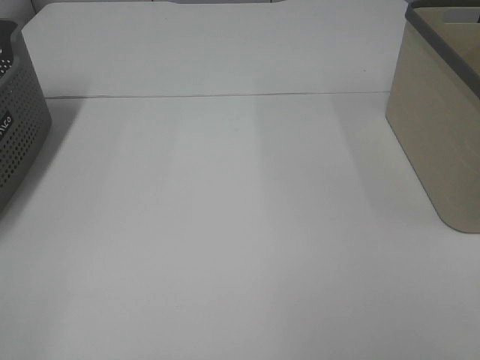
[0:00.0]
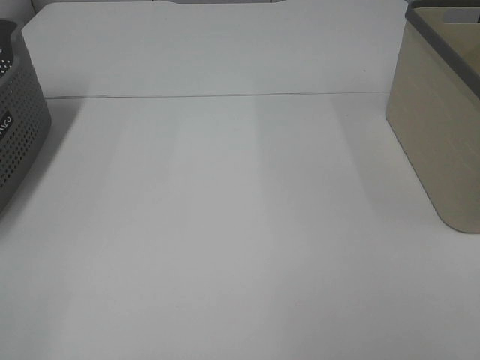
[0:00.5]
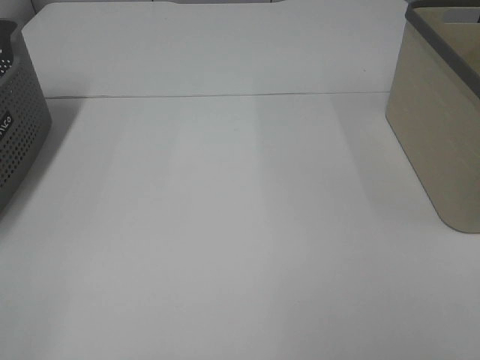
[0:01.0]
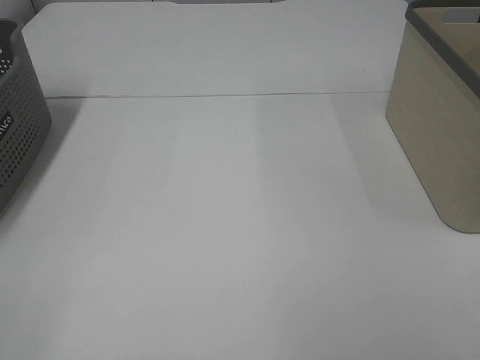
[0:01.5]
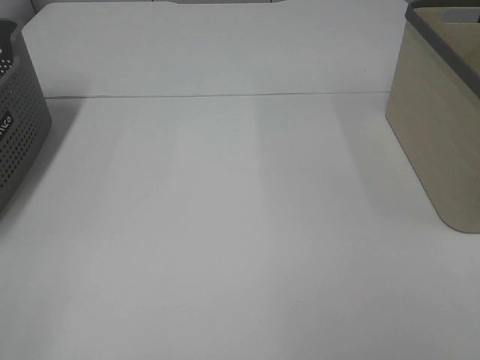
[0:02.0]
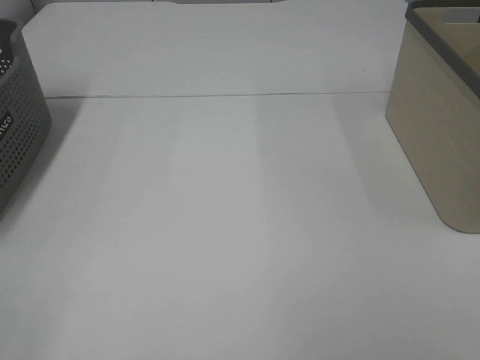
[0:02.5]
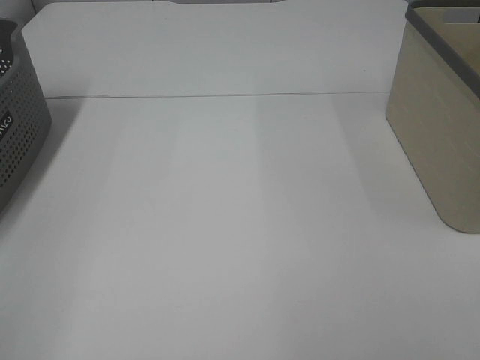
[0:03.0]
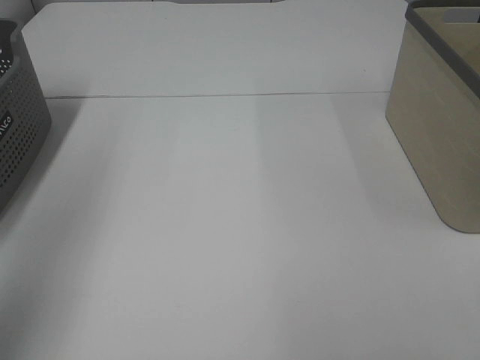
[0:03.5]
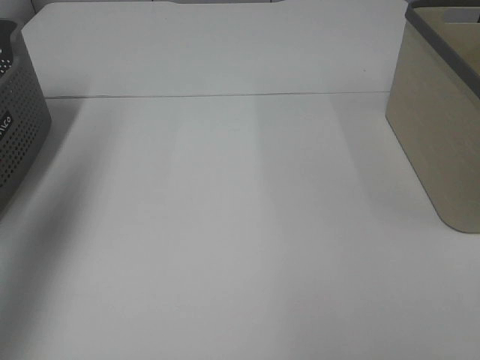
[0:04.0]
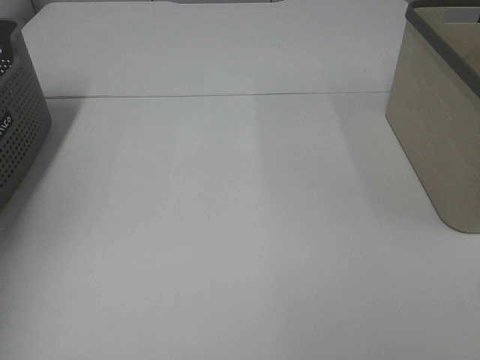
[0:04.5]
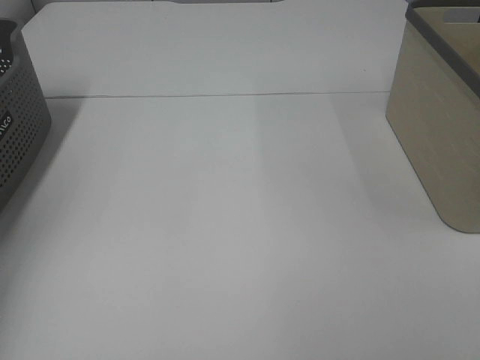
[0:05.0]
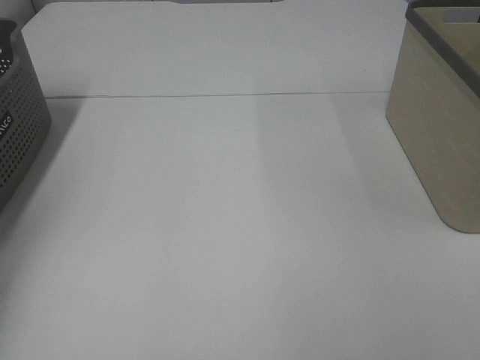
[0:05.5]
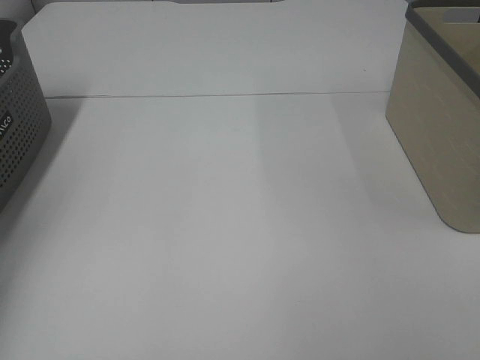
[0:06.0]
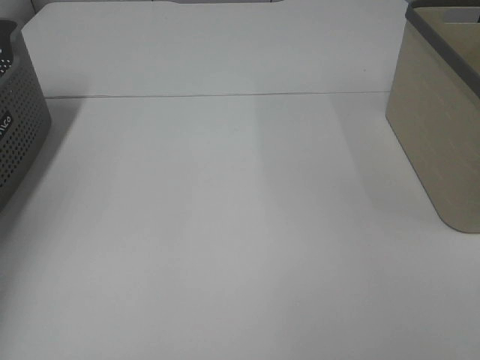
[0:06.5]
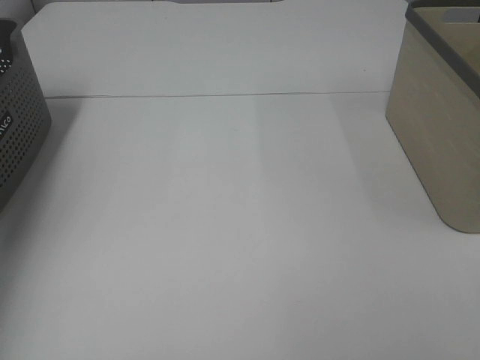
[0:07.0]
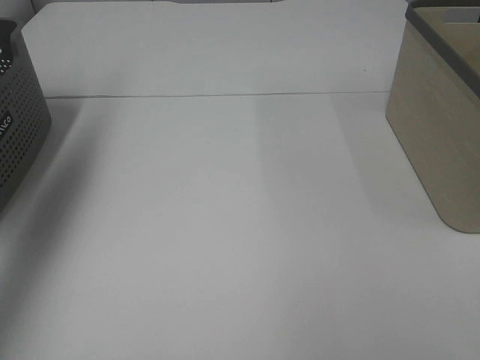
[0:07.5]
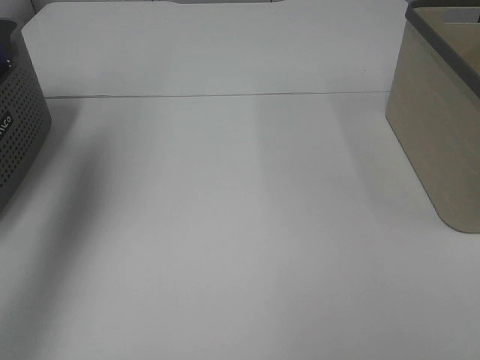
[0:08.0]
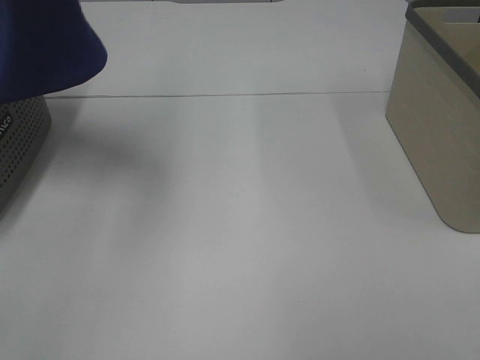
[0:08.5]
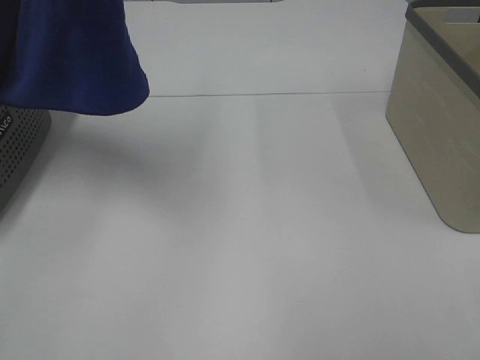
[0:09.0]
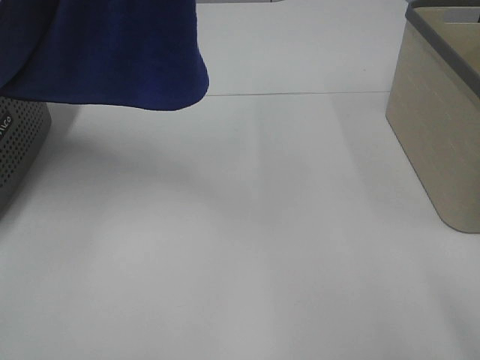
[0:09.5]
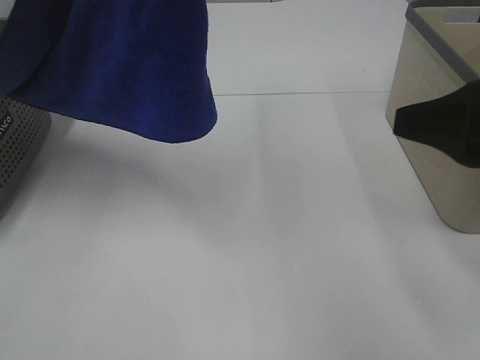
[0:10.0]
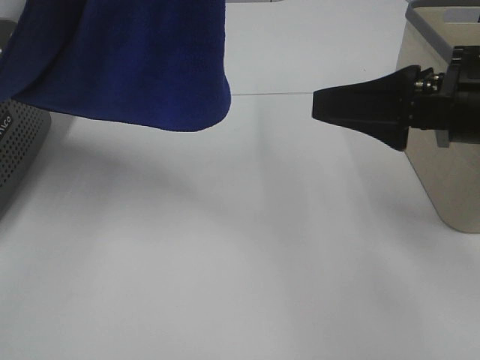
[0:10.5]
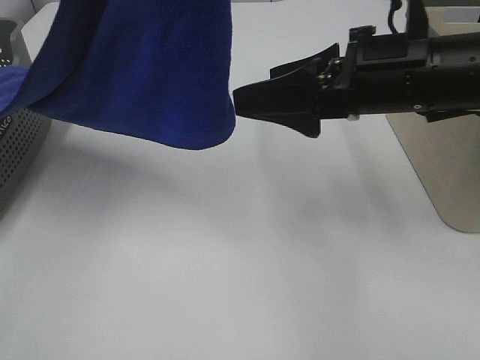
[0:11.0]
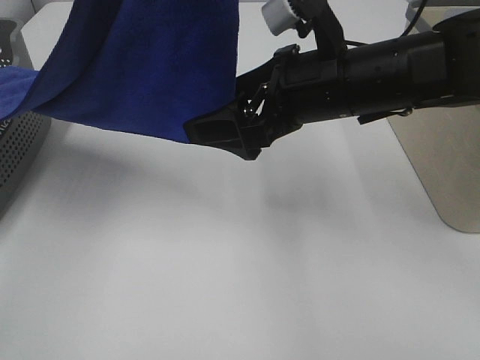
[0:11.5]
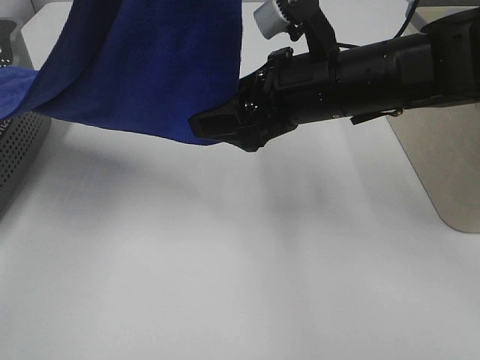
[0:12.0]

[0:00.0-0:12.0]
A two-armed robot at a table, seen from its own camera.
Task of the whole recording: Remove the towel and place it.
0:00.0 to 0:02.0: Both grippers stay put.
0:02.0 to 0:04.0: The left gripper heads forward and upward, covering roughly 30 cm.
0:04.0 to 0:06.0: The left gripper moves downward, forward and to the left, approximately 25 cm, and closes its fingers.
0:06.0 to 0:08.0: The left gripper shifts roughly 35 cm upward and to the right.
0:08.0 to 0:10.0: The left gripper shifts about 20 cm to the right and backward. Meanwhile the right gripper heads forward, covering some 15 cm.
0:10.0 to 0:12.0: The right gripper heads to the left and forward, covering roughly 20 cm.

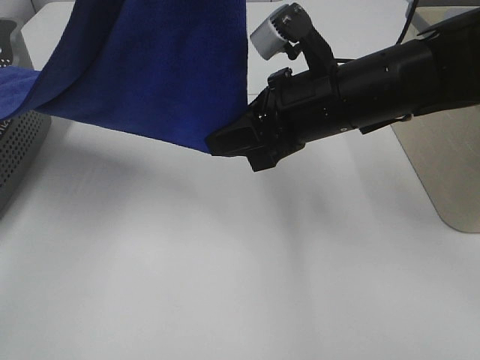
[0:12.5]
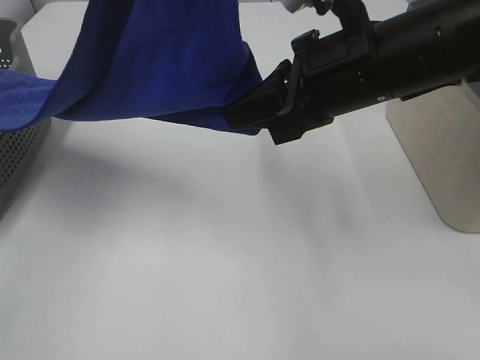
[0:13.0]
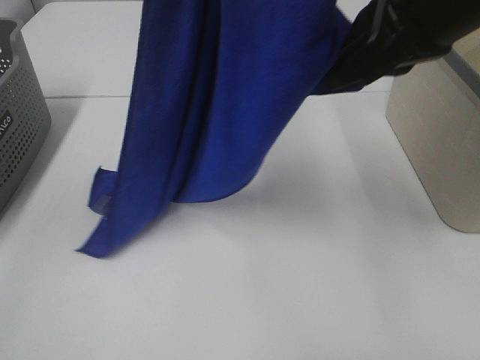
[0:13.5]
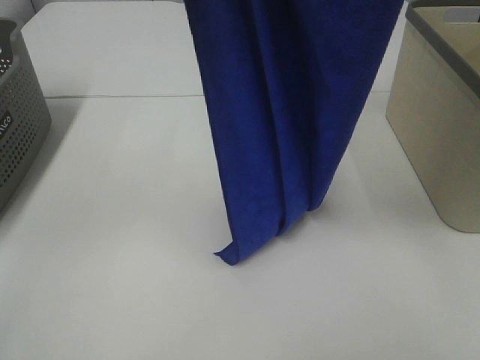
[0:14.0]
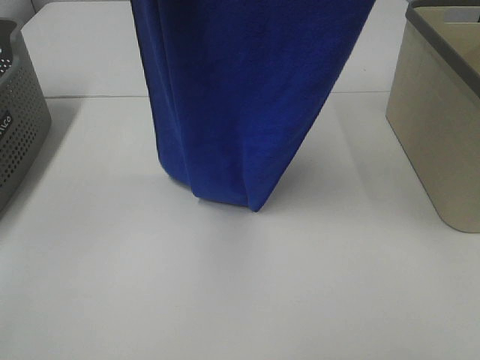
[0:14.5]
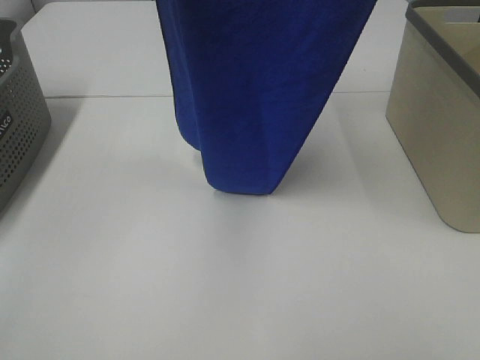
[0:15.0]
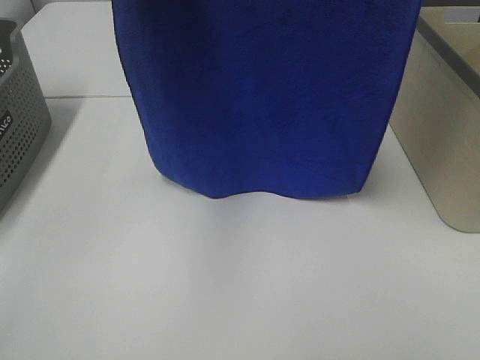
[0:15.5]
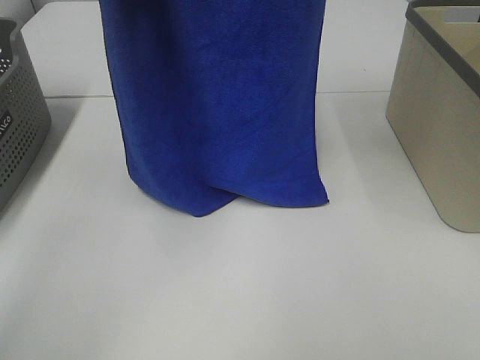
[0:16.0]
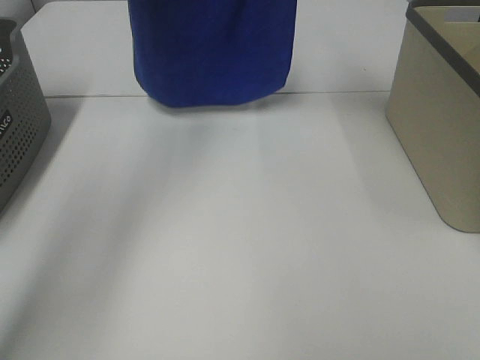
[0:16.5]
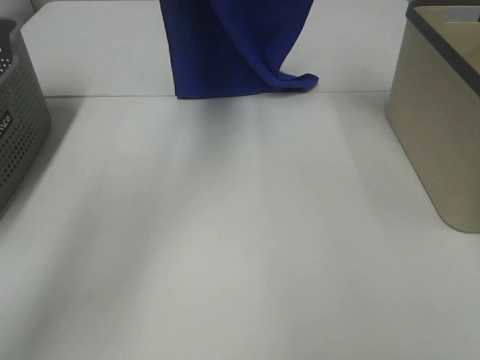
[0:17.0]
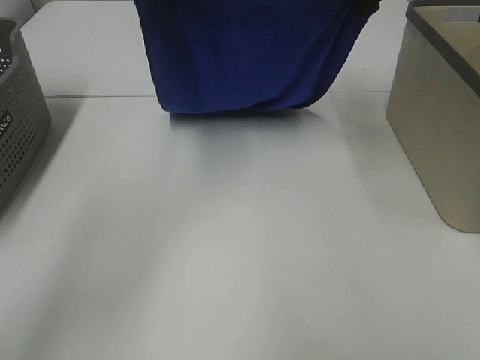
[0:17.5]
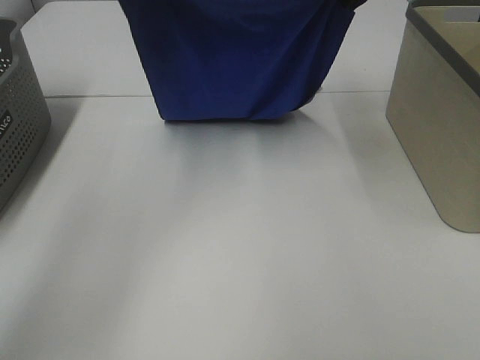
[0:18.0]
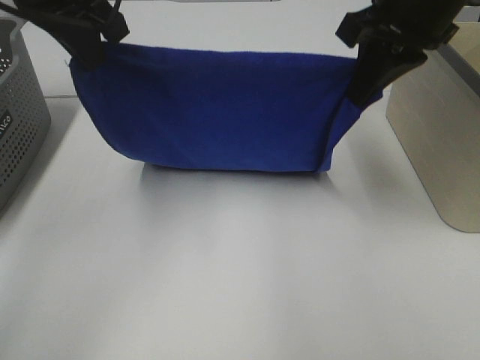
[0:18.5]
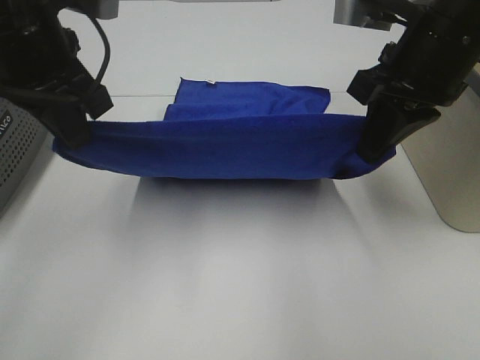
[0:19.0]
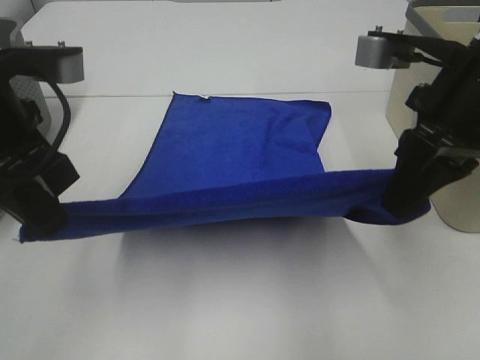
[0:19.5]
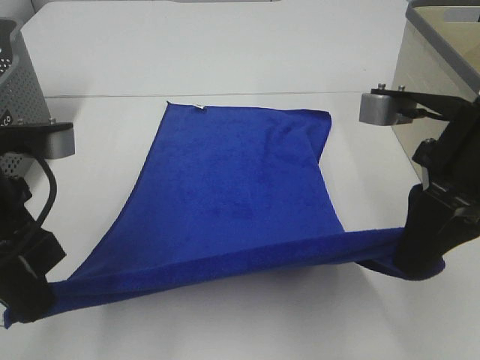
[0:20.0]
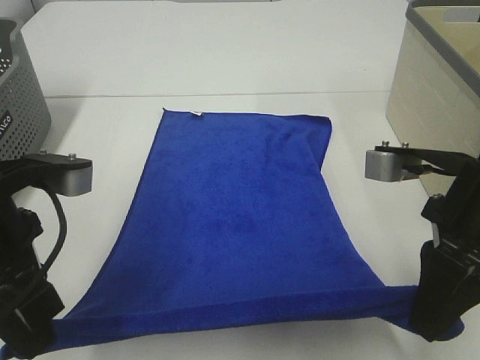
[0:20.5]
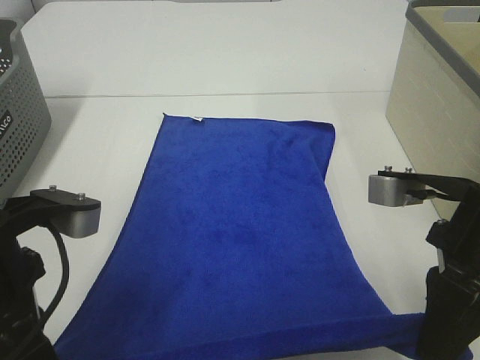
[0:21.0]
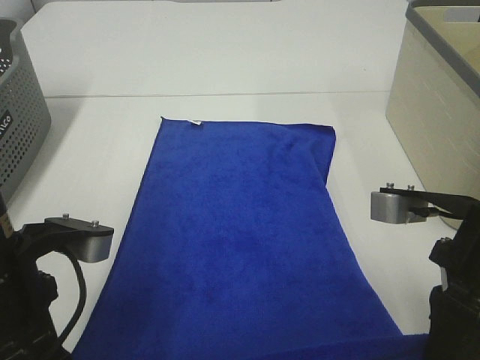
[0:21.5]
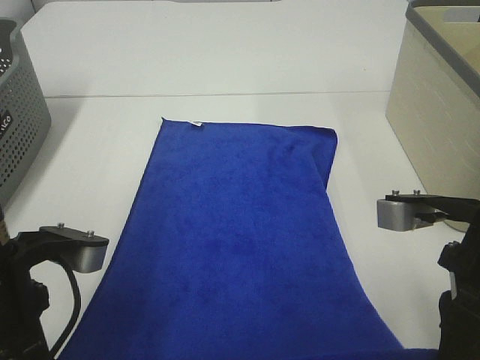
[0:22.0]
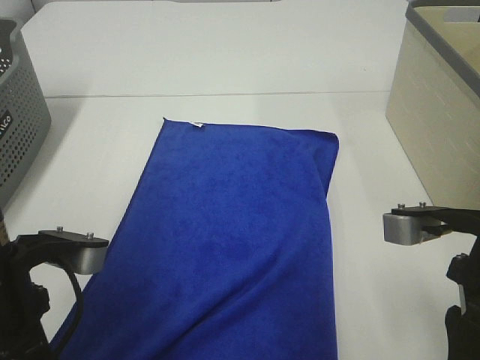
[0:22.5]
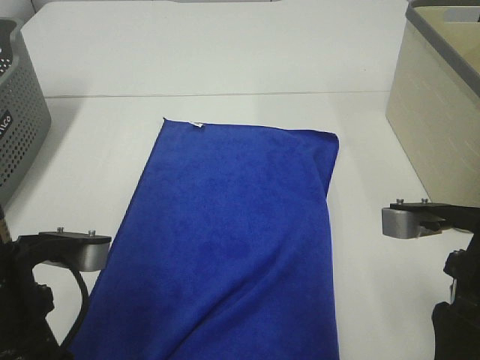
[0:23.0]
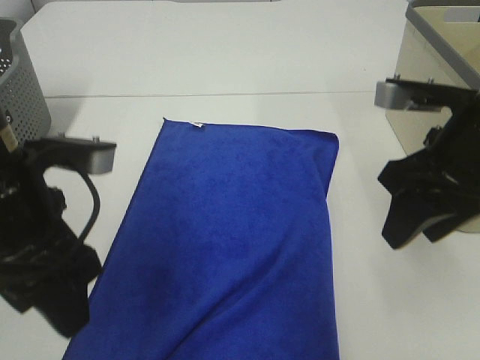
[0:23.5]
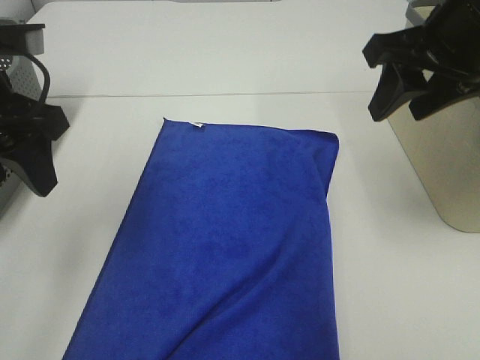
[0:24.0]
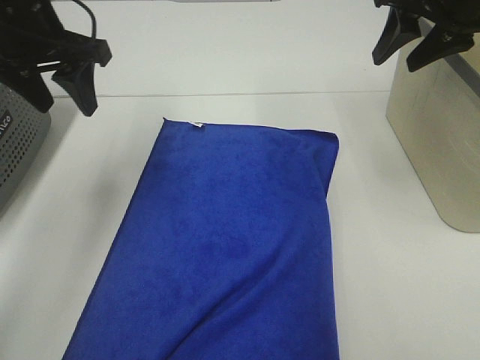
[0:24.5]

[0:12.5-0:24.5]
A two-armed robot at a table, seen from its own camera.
Task of the whole recording: Remove the towel and place it.
Step, 0:12.5 to 0:17.5: Right hand: spread the blue towel flat on the table.
Step, 0:12.5 to 0:18.0: Left hand: spread the blue towel flat on the table.
0:12.5 to 0:14.5: The left gripper changes place by about 5 cm. Meanwhile the right gripper goes some 25 cm upward.
0:14.5 to 0:16.5: The grippers both shift forward by approximately 20 cm.
0:16.5 to 0:18.5: Both grippers move downward and backward, some 20 cm.
0:18.5 to 0:20.5: The two grippers go some 20 cm backward and downward.
0:22.5 to 0:24.5: The right gripper heads forward and upward, covering about 25 cm, while the left gripper travels forward by approximately 25 cm, and opens.

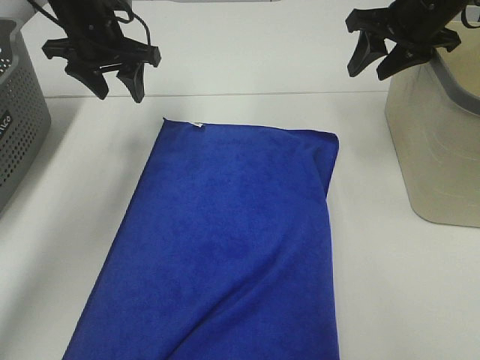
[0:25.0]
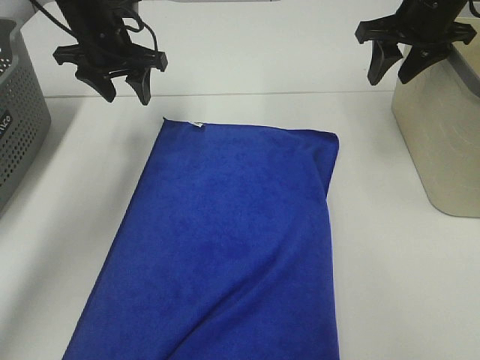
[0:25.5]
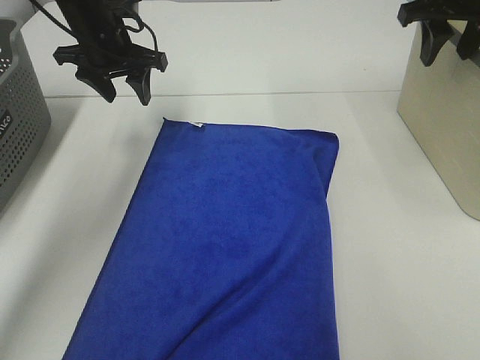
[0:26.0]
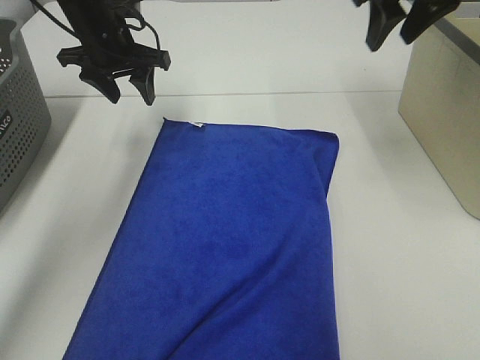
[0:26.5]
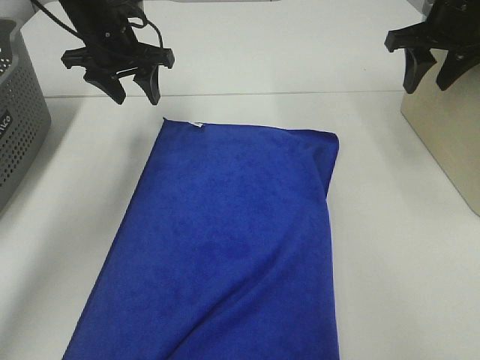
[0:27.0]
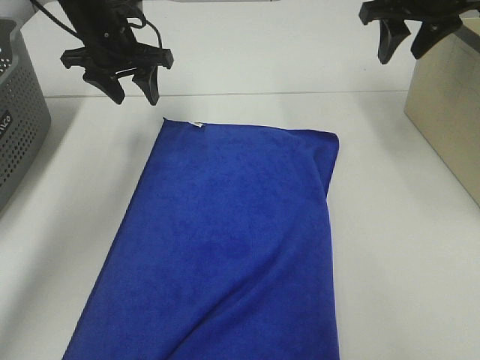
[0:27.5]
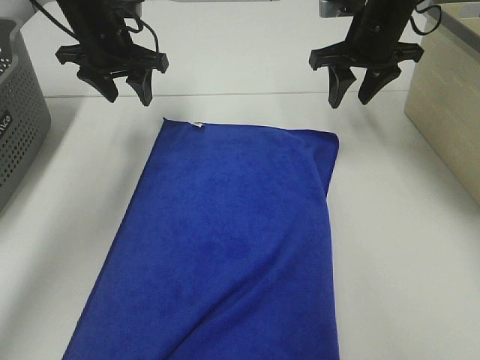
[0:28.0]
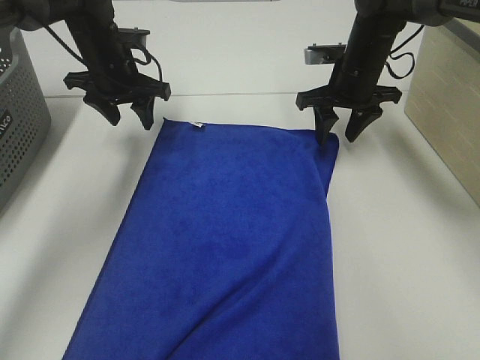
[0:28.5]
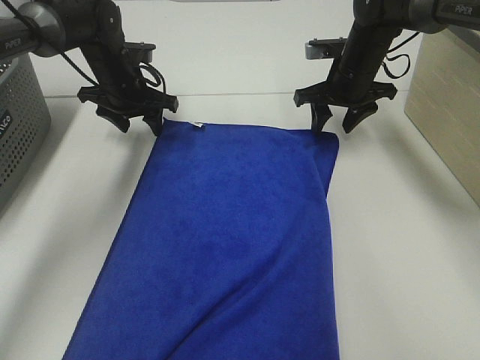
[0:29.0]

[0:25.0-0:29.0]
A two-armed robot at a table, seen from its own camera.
Task of the whole recording: Remove the towel and place it.
Step, 0:25.0 to 0:27.0: Right hand:adjust the blue towel.
0:25.0 to 0:27.0: The right gripper swings left and right, some 10 cm each way, with 2 reversals.
0:27.0 to 0:29.0: The right gripper shifts roughly 15 cm downward and to the left; the left gripper shifts about 10 cm downward.
